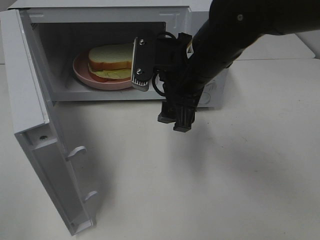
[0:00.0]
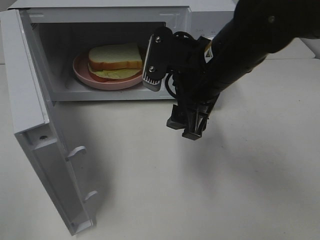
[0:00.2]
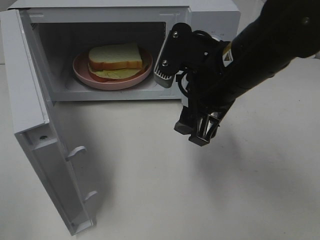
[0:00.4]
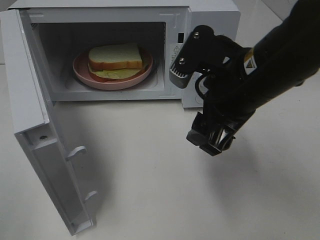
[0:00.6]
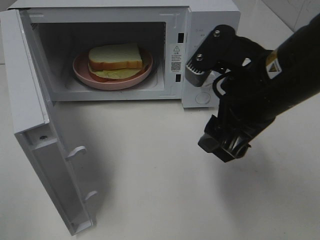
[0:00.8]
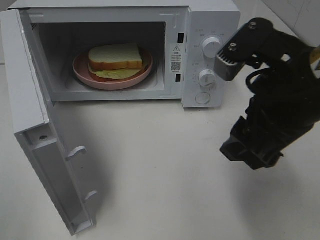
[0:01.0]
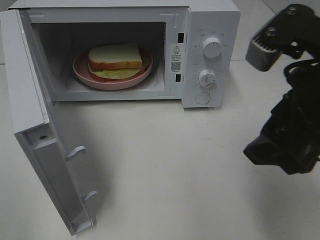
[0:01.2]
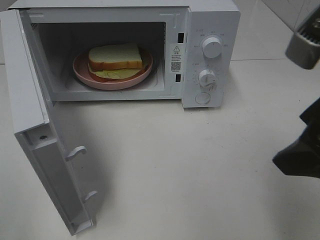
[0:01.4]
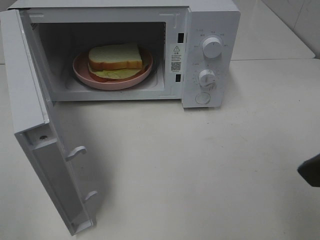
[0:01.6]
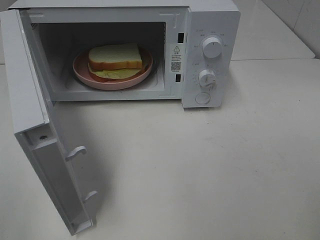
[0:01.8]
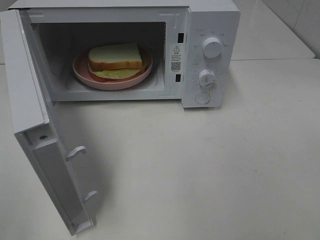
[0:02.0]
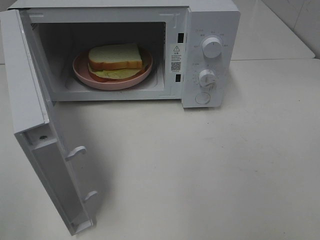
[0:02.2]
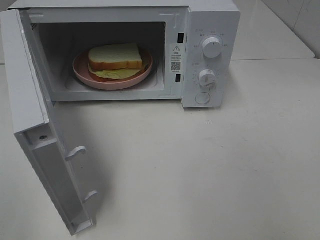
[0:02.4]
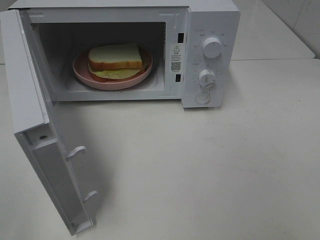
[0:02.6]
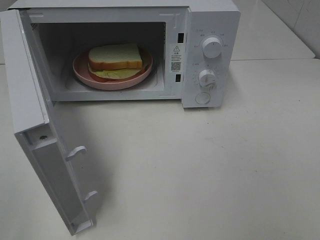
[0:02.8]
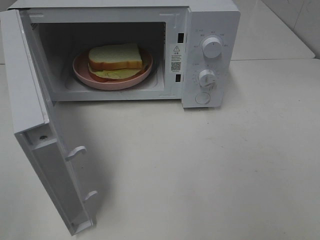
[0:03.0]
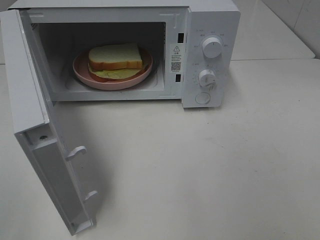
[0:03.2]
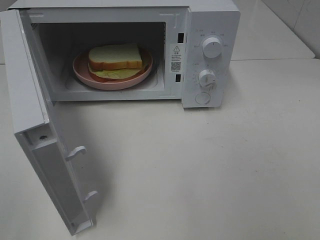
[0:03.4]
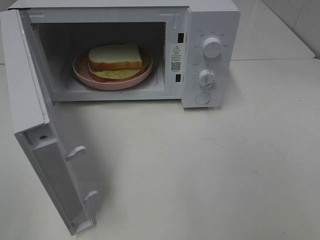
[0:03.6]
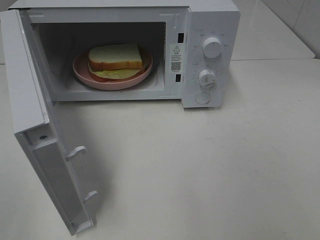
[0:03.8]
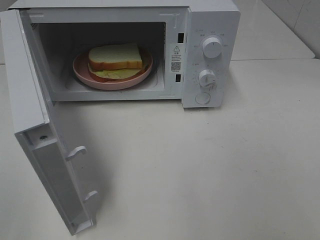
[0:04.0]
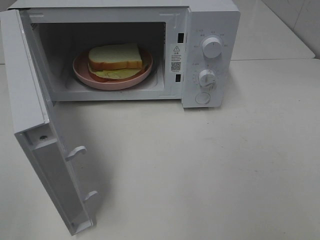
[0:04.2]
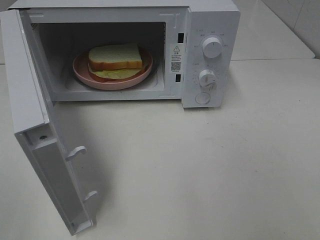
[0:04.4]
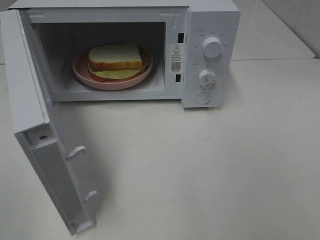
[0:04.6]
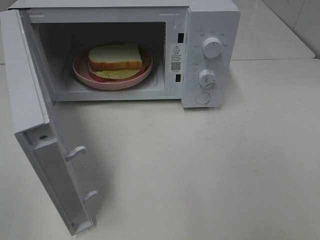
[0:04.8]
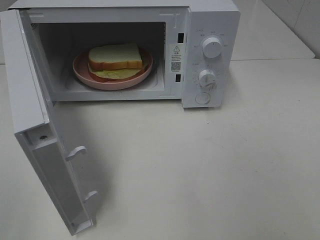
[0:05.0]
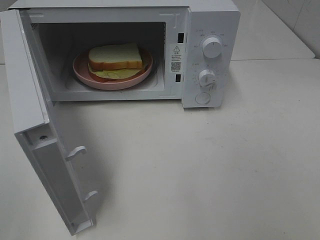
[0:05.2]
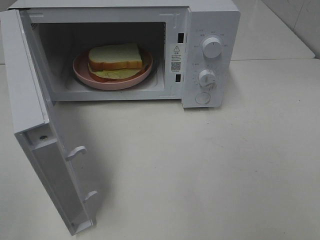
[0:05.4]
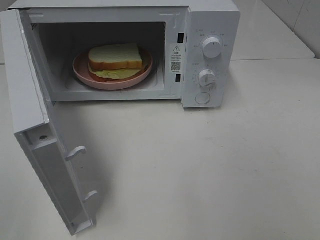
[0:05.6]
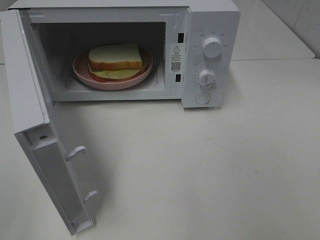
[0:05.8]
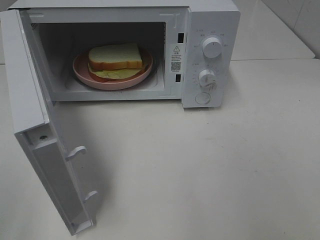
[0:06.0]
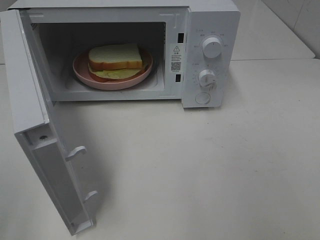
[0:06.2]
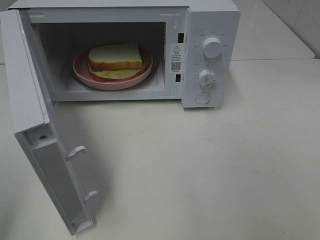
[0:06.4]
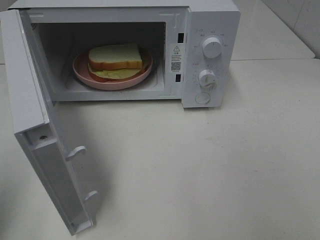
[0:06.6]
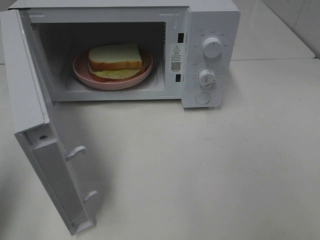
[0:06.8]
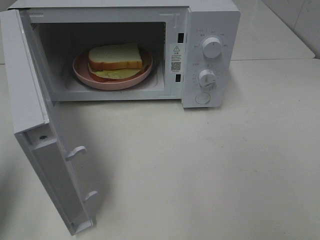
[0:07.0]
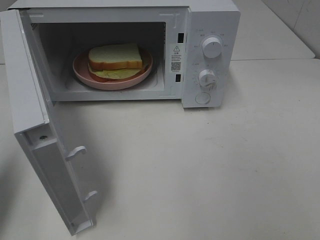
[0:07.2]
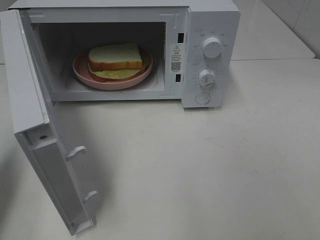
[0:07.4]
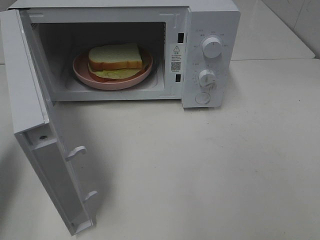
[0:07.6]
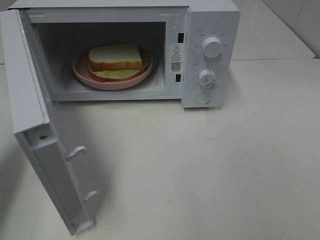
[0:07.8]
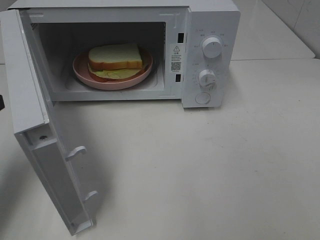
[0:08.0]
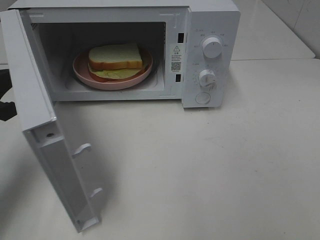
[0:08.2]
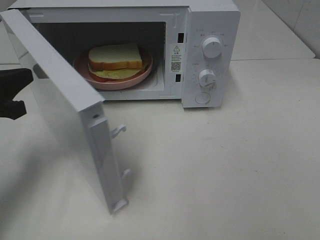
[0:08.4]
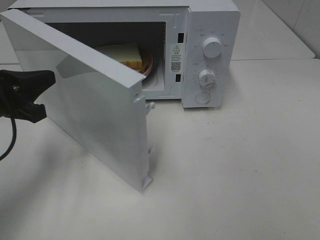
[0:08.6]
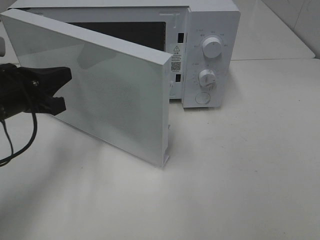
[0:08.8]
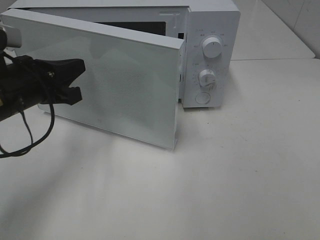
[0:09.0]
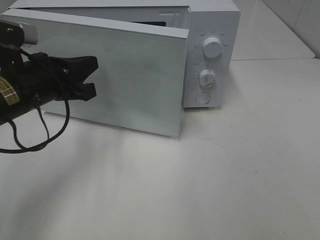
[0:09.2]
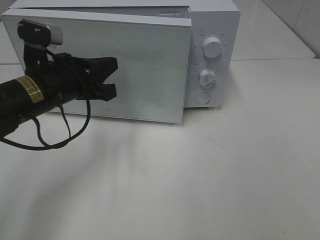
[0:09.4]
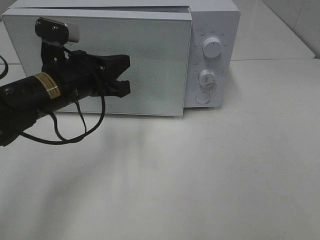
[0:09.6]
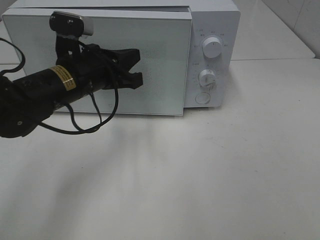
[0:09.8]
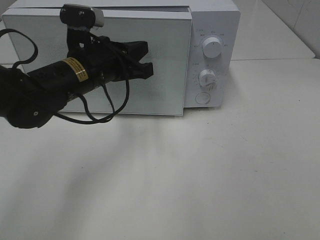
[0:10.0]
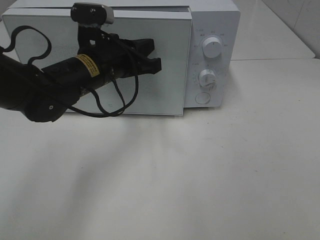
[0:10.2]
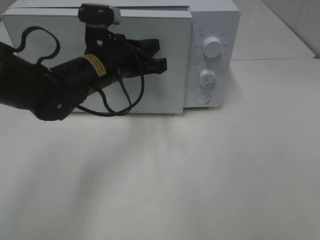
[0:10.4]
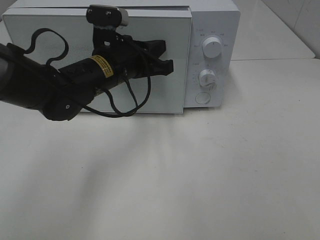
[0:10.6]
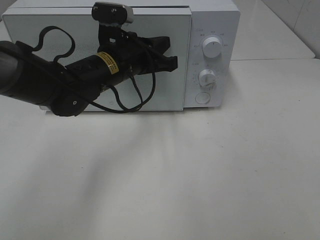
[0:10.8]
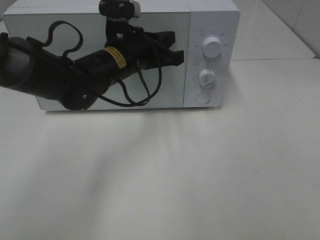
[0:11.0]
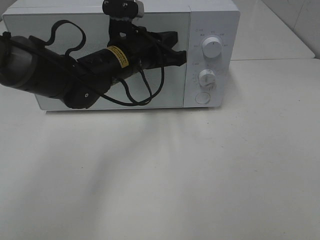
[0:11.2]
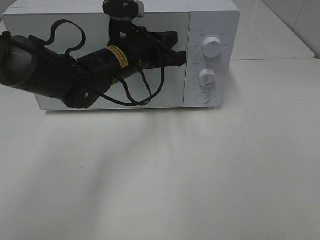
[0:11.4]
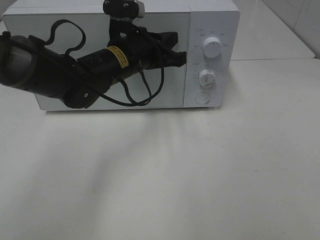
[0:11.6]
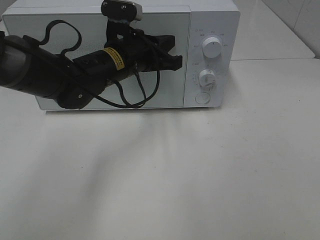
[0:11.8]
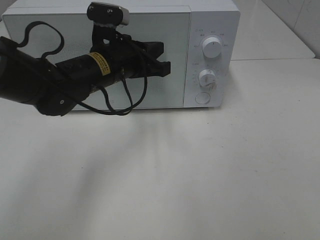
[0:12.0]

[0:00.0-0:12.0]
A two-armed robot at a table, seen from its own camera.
Task of the whole recording: Heat Sandwich.
0:00.0 to 0:01.6: The right gripper moves backward, to the right and upward, some 25 cm.
0:01.6 to 0:03.0: The right gripper heads backward and to the right, covering approximately 15 cm.
0:06.0 to 0:07.6: The left gripper shifts some 20 cm forward and downward, and closes its fingers.
0:07.6 to 0:09.0: The left gripper heads to the right and forward, covering approximately 15 cm.
0:09.0 to 0:10.4: The left gripper heads to the right and forward, covering some 15 cm.
0:10.4 to 0:12.0: The grippers stay close to where they were, moving slightly.

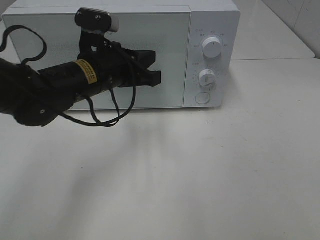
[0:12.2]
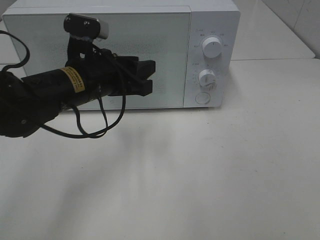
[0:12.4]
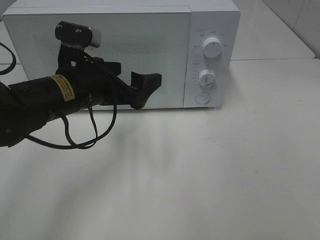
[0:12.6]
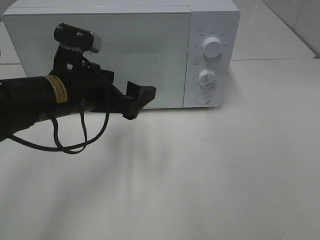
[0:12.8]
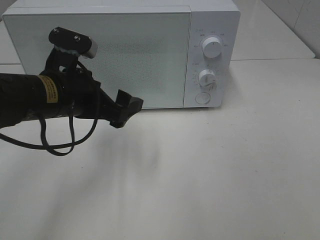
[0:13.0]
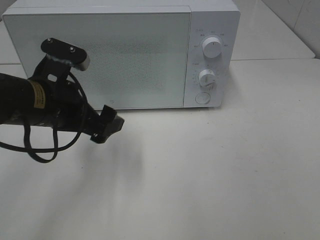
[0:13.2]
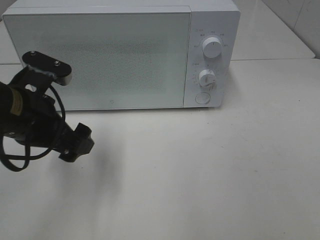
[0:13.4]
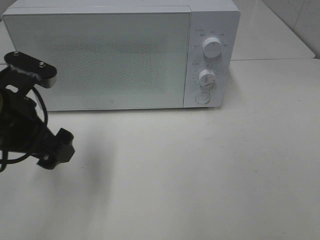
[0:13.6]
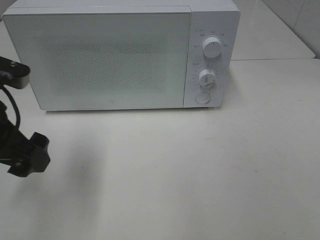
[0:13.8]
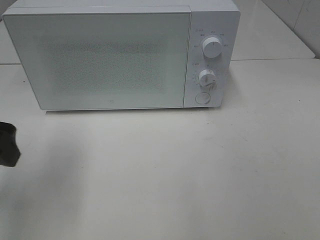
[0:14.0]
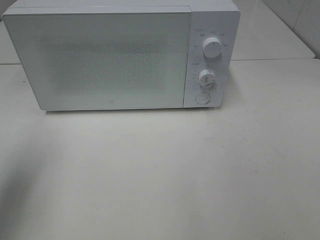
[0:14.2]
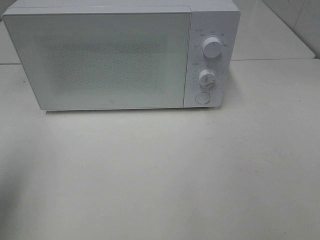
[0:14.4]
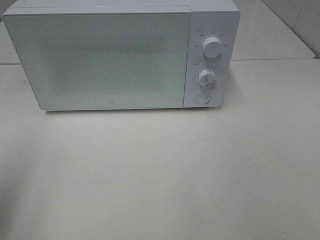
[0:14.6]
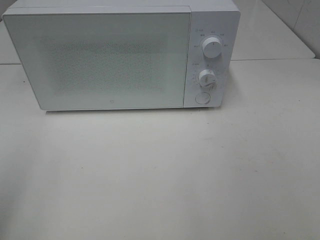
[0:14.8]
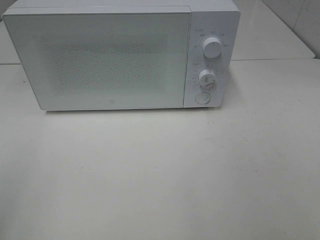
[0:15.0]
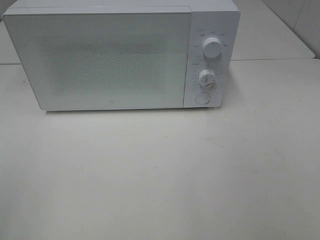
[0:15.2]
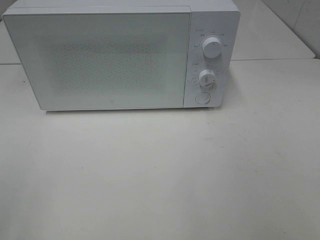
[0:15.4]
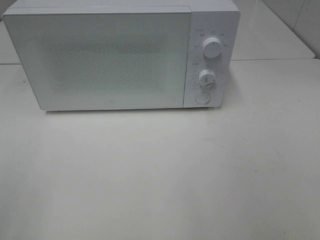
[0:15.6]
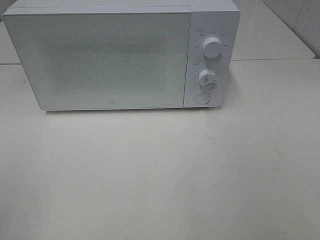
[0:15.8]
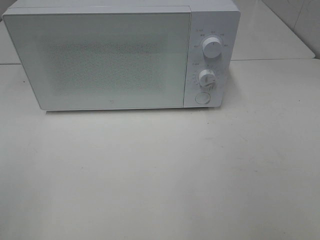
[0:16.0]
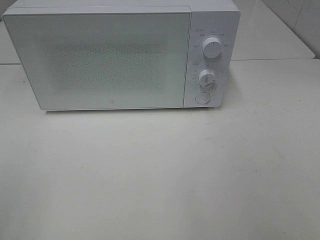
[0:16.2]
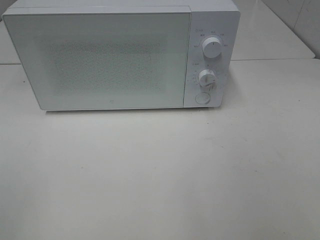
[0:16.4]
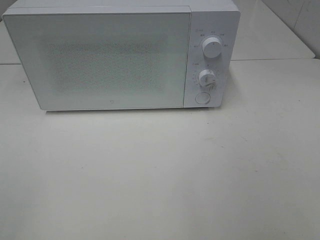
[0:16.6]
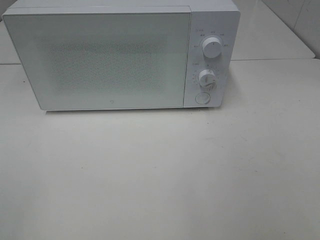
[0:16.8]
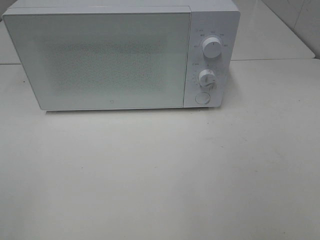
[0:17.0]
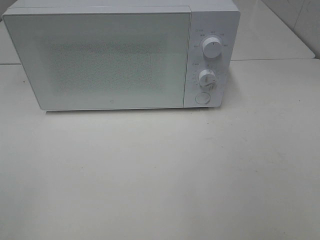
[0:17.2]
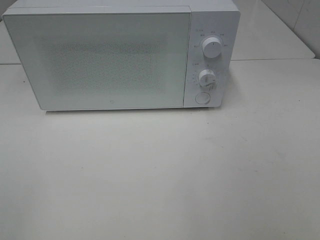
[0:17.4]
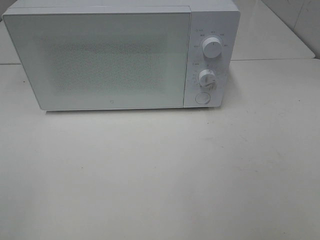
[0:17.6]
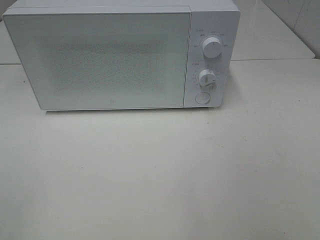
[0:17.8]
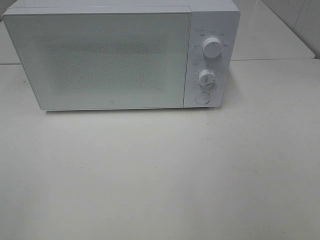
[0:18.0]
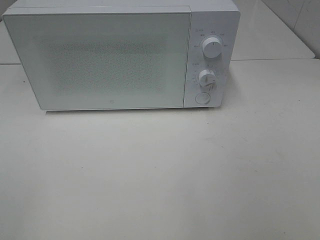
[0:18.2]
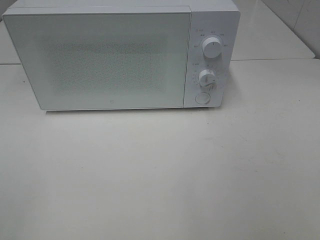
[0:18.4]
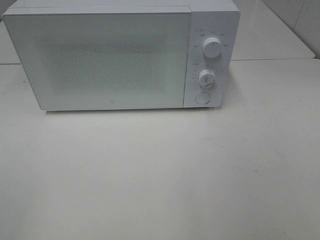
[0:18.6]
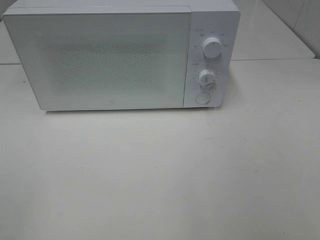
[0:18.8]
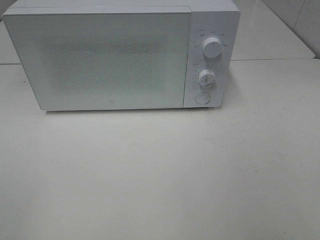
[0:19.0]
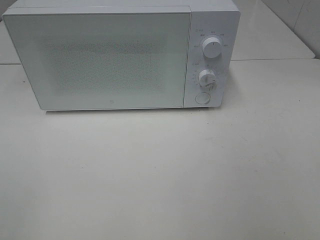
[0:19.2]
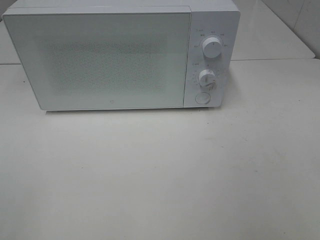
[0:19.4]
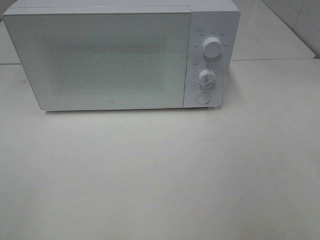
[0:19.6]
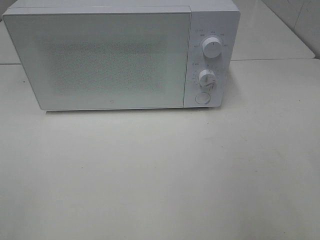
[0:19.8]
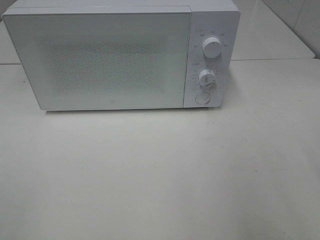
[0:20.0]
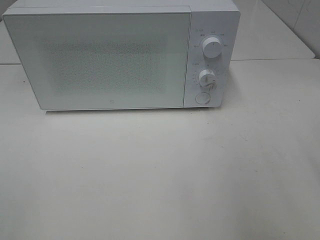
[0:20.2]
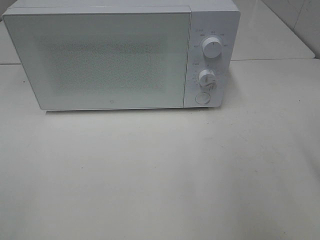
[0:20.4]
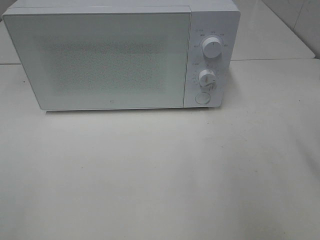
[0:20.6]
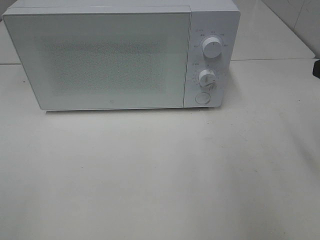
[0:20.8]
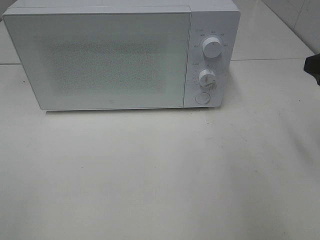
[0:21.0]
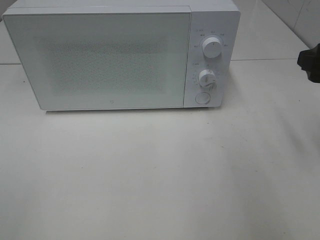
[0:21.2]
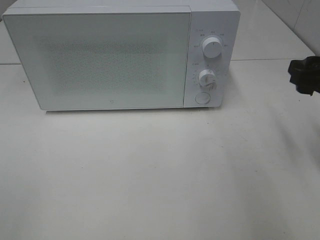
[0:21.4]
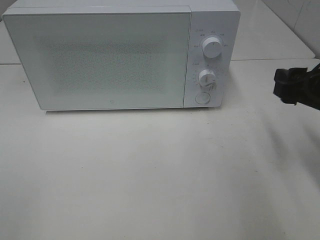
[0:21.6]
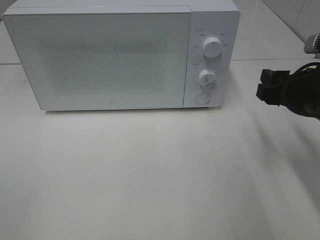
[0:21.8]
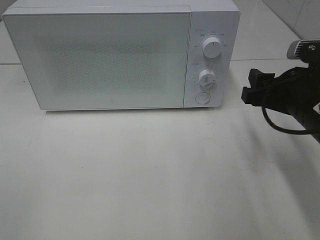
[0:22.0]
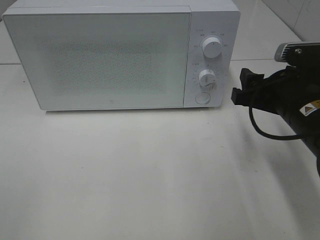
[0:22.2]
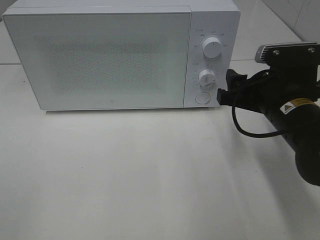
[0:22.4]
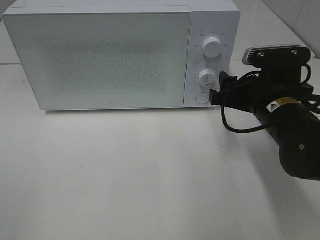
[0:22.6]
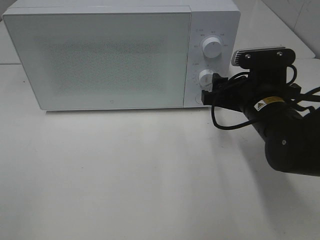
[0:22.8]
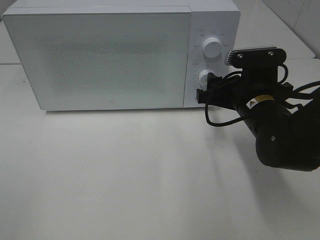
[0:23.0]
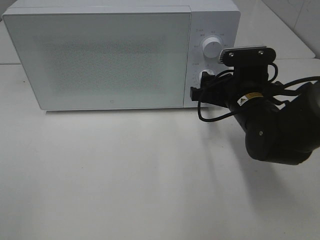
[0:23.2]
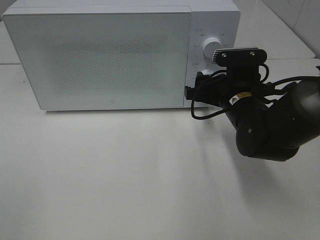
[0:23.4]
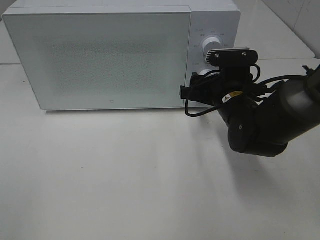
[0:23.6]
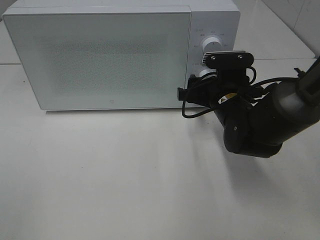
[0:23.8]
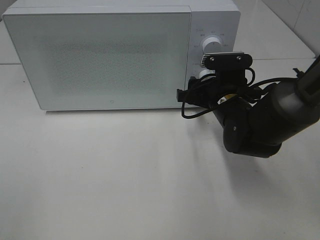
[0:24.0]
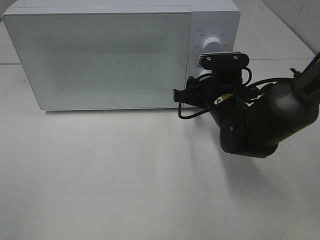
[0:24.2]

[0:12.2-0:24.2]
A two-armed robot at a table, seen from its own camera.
Task of the whole recording: Heat Sandwich.
0:12.2 to 0:13.8: The left gripper heads to the left and backward, covering about 15 cm, and opens.
0:13.8 to 0:15.2: The left gripper heads backward, to the left and upward, covering approximately 20 cm.
0:16.6 to 0:18.2: Neither gripper changes place.
0:19.8 to 0:21.2: The right gripper shifts approximately 15 cm forward.
0:21.2 to 0:22.6: The right gripper goes about 15 cm to the left and downward.
0:22.6 to 0:24.2: The right gripper goes approximately 10 cm forward and to the left.
